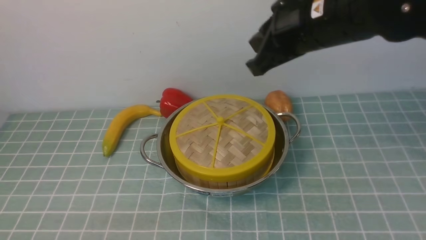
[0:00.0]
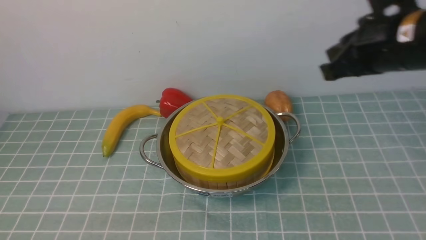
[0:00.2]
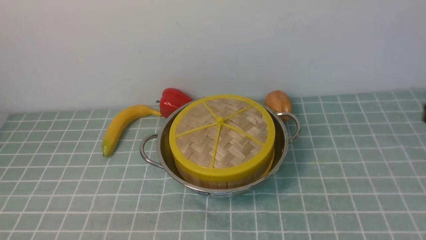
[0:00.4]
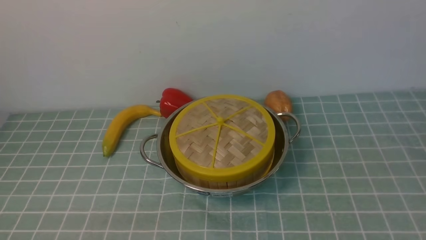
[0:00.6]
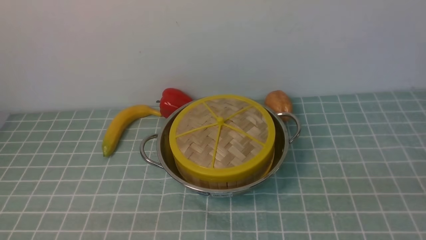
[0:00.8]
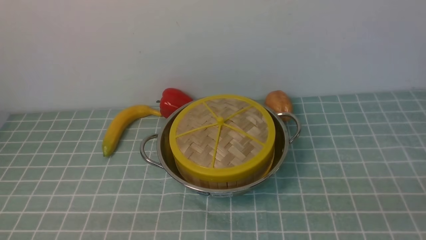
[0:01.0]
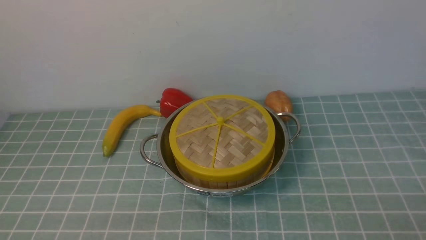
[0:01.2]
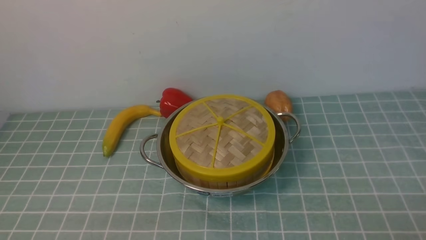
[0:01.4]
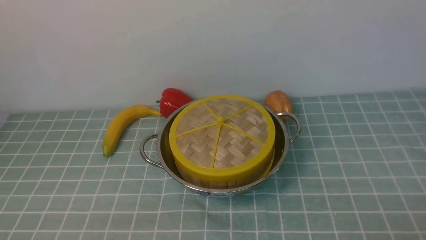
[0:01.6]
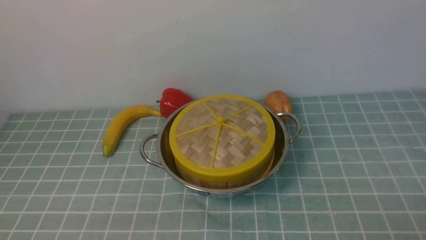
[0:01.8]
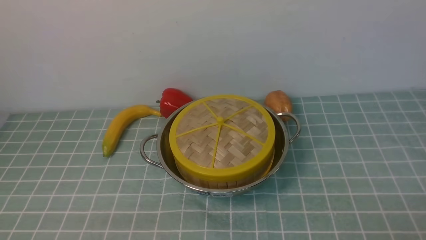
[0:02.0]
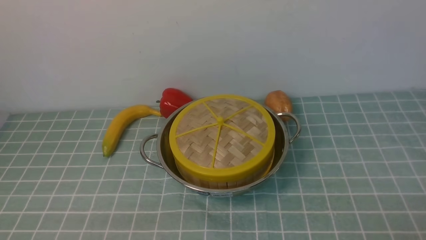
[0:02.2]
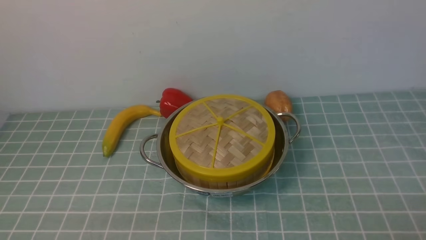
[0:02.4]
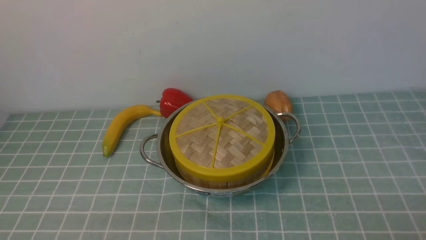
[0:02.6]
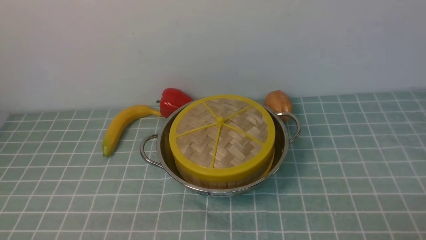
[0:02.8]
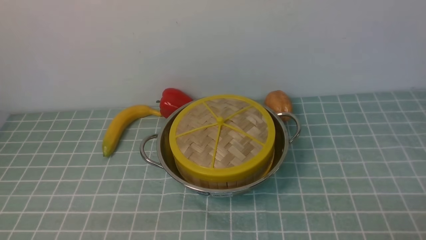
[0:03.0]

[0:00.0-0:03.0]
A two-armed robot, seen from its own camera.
Task of the whole recording: place the steamer in the pot on the blue tablecloth, and put the lid on the steamer.
0:00.0 to 0:01.6: The right gripper heads backward, downward and to the right, covering roughly 35 cm.
0:01.6 to 0:03.0: Both grippers stay about where they are.

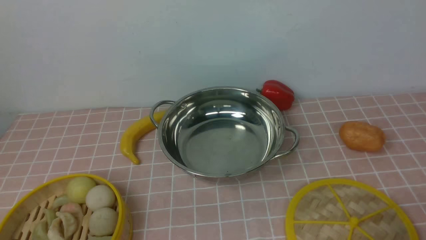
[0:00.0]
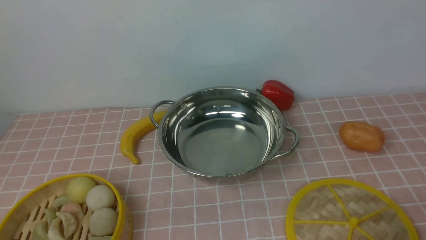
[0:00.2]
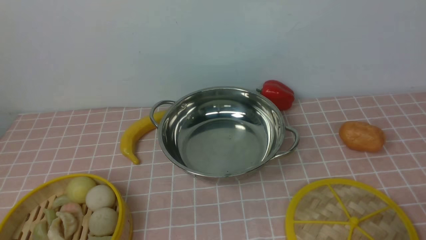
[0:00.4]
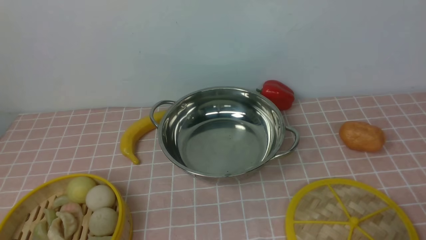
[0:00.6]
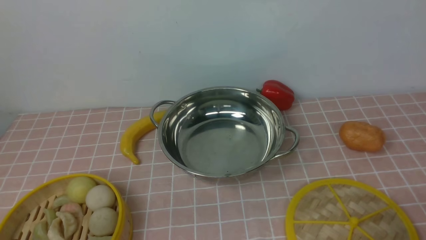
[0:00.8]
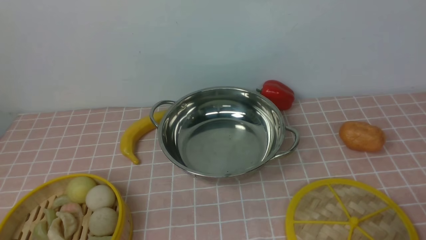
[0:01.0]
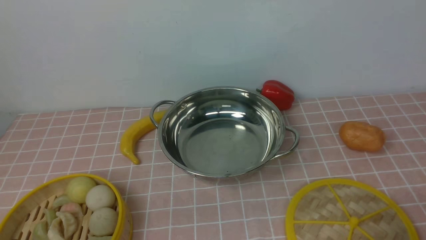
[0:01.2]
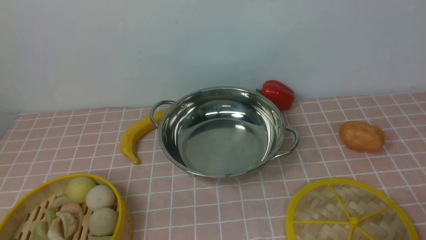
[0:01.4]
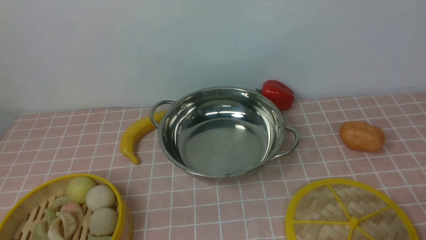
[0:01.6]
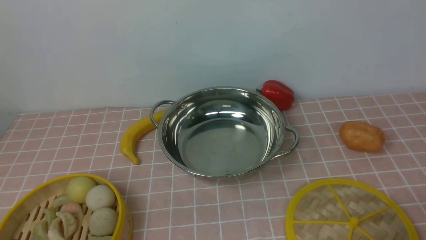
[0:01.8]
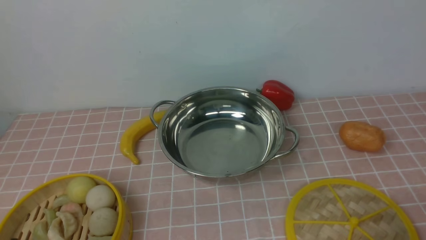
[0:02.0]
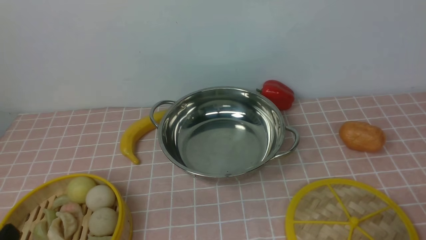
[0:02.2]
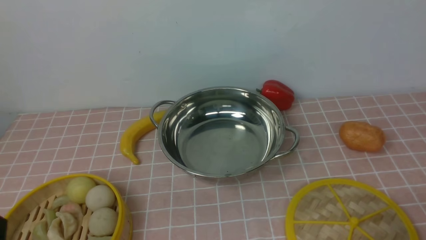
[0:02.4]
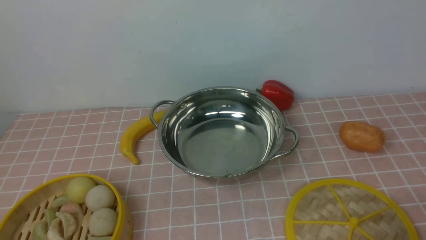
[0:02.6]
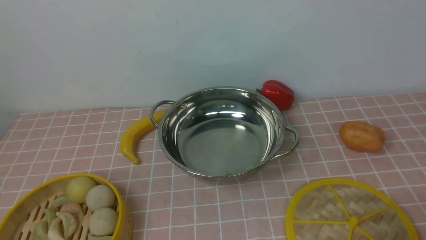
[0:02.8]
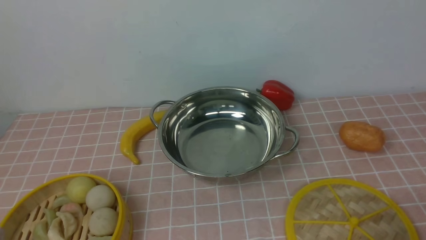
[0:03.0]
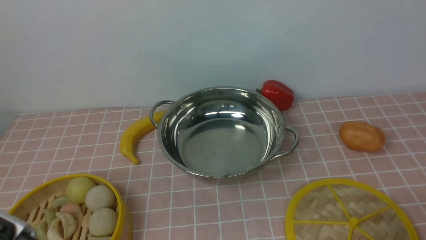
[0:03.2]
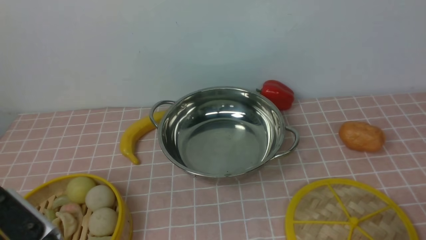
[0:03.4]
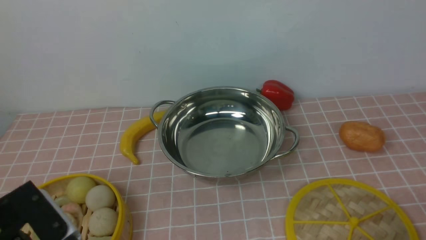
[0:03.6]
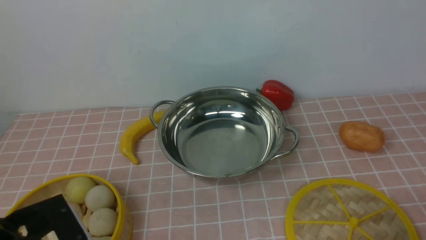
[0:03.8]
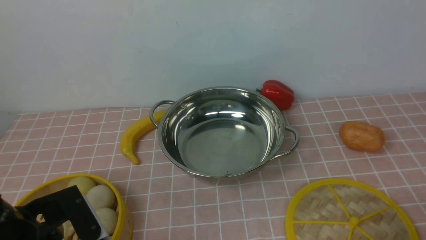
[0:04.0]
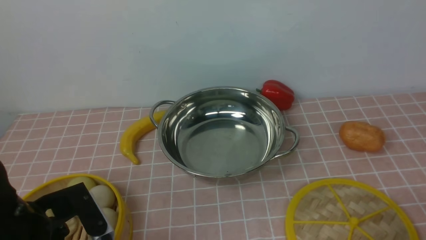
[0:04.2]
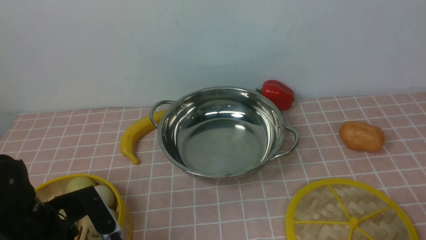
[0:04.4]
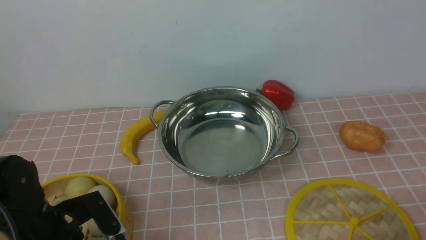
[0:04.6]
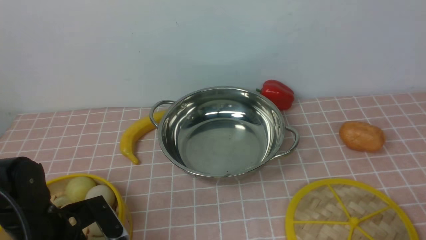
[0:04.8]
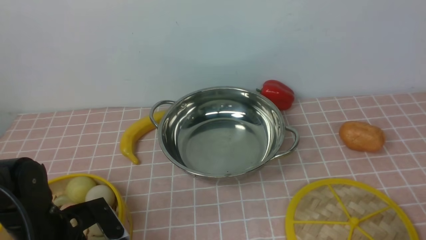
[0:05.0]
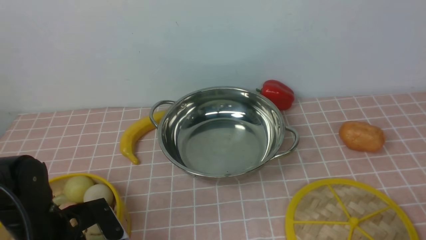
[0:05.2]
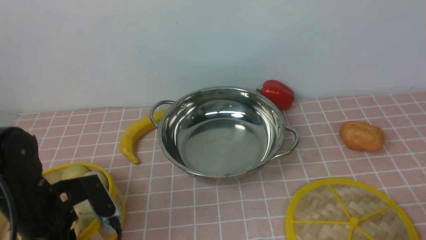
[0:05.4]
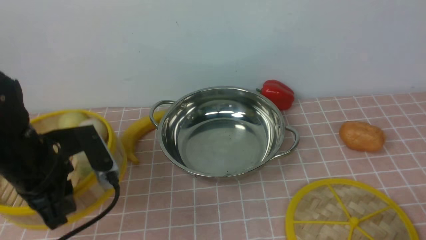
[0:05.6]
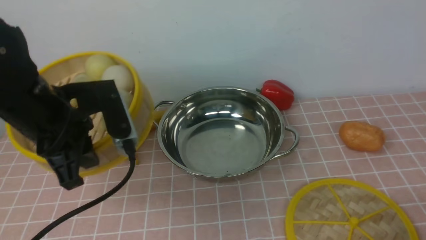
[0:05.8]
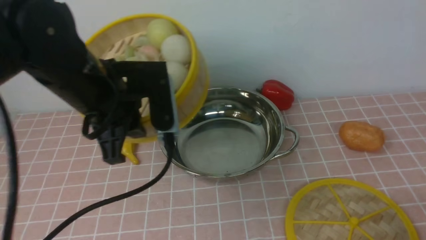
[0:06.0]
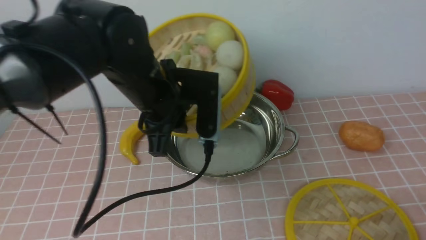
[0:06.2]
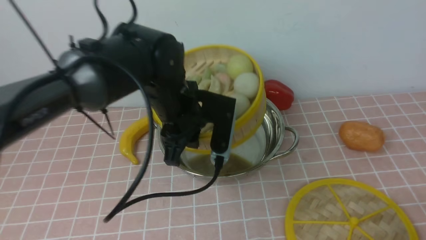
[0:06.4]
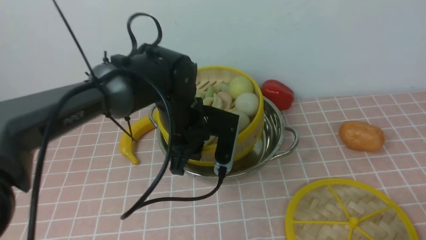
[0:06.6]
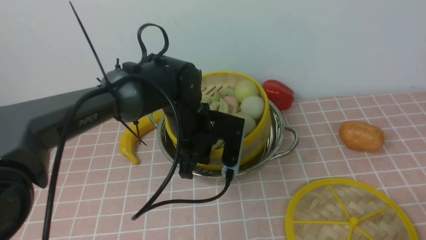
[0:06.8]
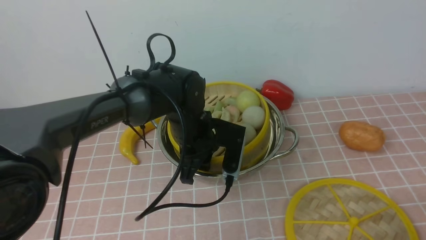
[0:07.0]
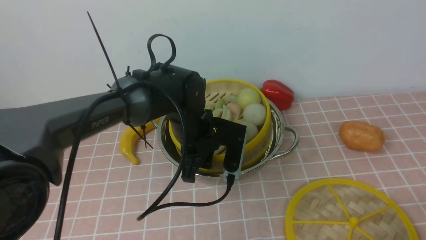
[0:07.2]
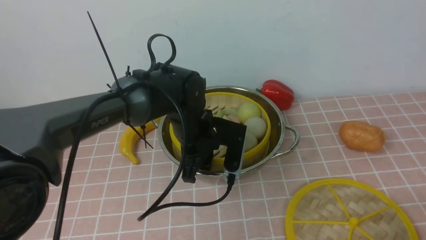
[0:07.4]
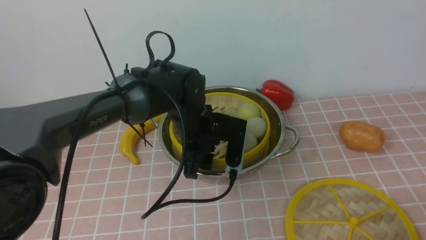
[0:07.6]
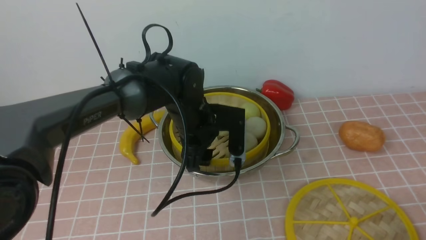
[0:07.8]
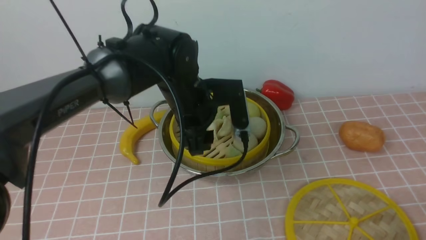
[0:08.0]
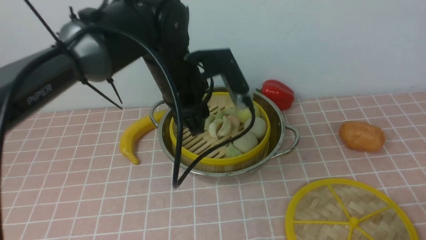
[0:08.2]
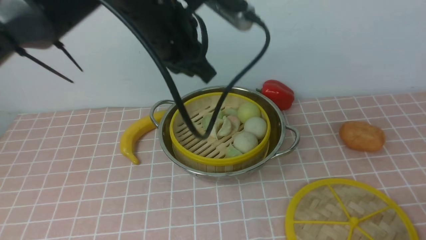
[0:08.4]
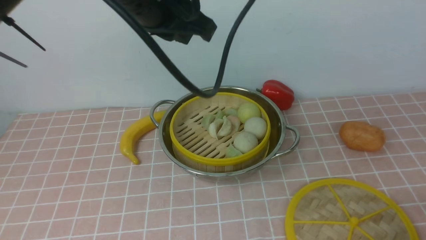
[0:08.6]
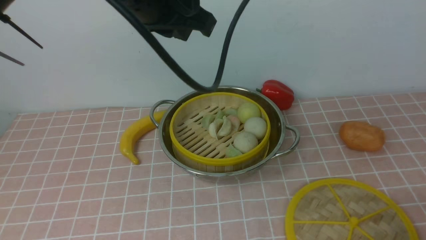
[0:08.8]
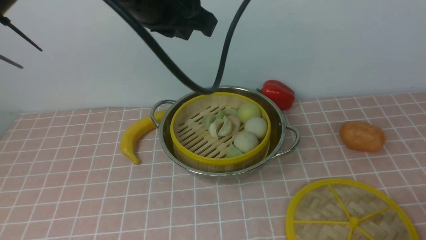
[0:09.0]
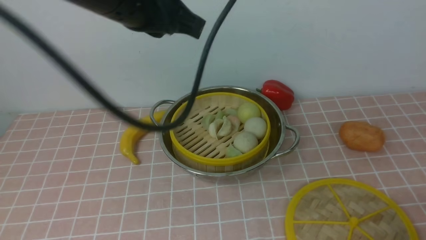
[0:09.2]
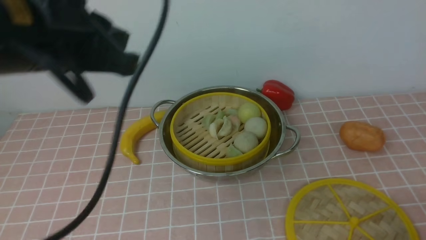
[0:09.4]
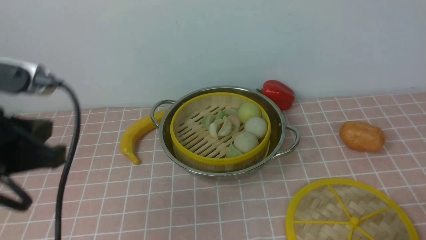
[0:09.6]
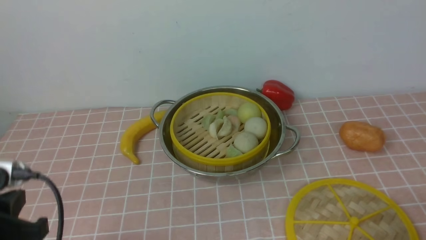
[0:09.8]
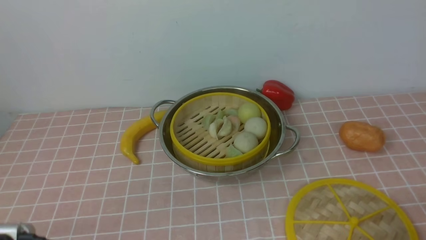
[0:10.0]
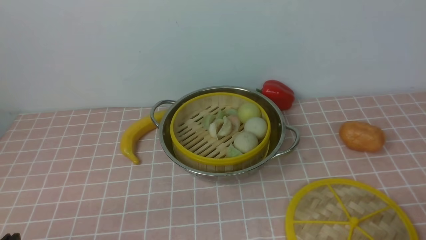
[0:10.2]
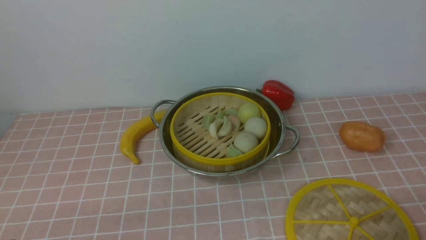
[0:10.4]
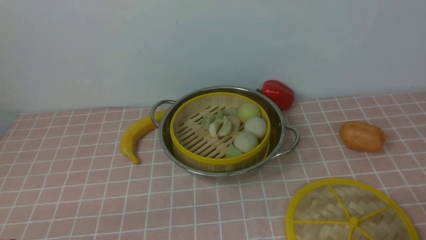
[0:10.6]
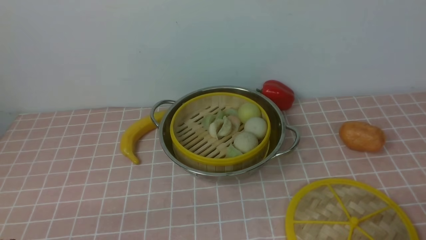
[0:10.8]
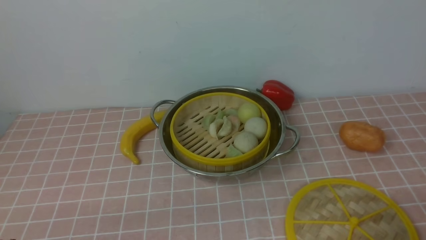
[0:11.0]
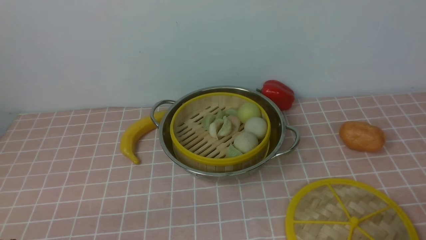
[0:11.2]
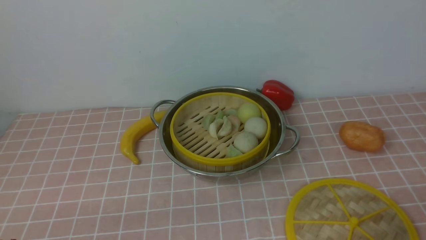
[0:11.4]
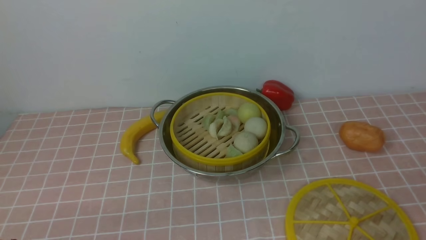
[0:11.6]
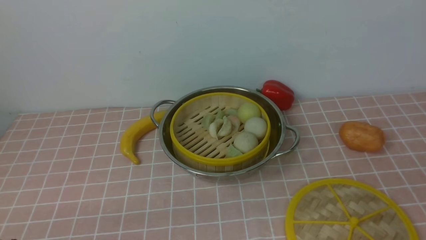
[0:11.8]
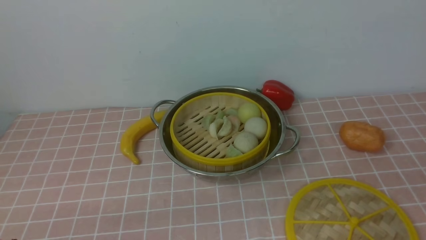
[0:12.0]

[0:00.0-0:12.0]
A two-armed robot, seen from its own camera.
Task of the whole recording: place the steamer in the pot on the pink tablecloth, and put the lid on the steamer.
Step, 0:00.0 to 0:05.2: use the left arm to lift the steamer closest to it.
Step, 0:05.4 to 0:07.8: use the left arm to put the steamer into the iron steamer pot in the middle.
0:00.0 to 0:01.6: Neither gripper changes place.
0:03.0 to 0:04.4: The left gripper moves forward and downward, about 20 cm, and opens its fingers.
0:04.4 to 0:06.0: The left gripper is displaced upward, forward and to the right by roughly 20 cm, and closes.
0:06.0 to 0:07.6: The left gripper heads downward, to the right and forward, covering some 15 cm, and opens.
0:07.6 to 0:09.0: The left gripper goes approximately 25 cm upward, and closes.
0:09.0 to 0:10.4: The left gripper moves backward, downward and to the left, some 40 cm.

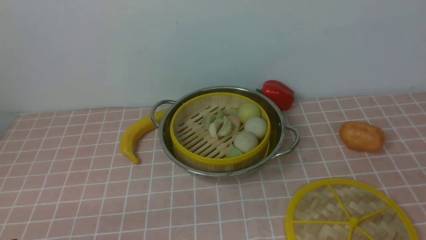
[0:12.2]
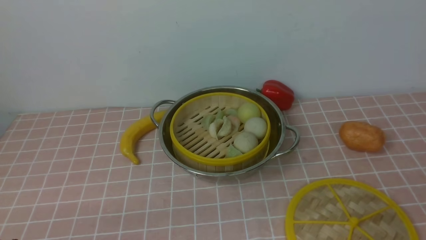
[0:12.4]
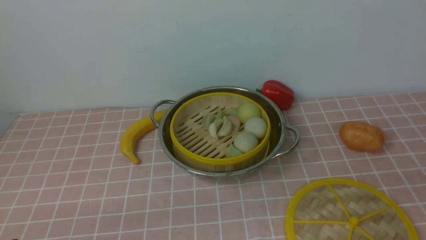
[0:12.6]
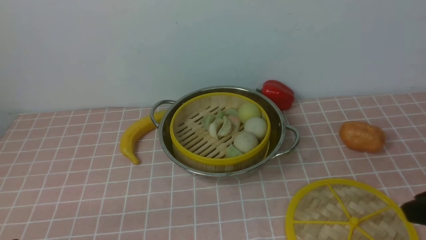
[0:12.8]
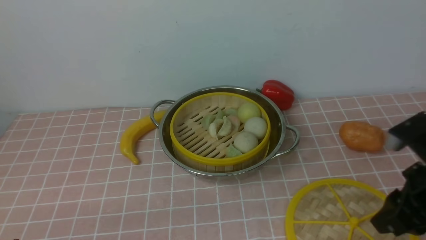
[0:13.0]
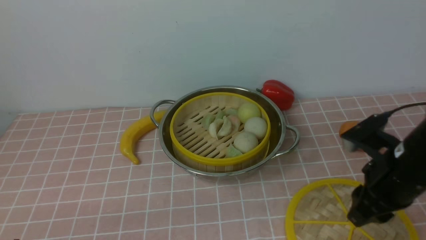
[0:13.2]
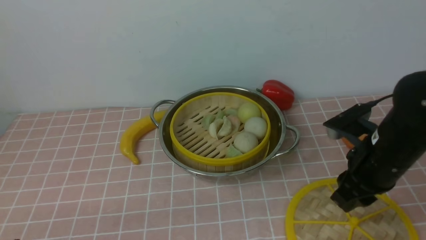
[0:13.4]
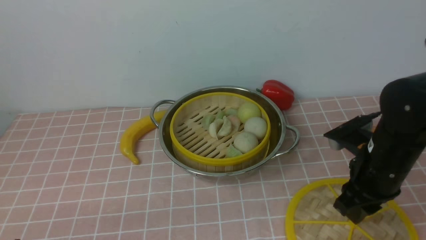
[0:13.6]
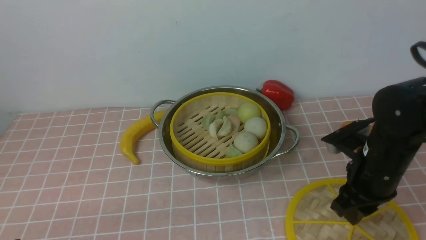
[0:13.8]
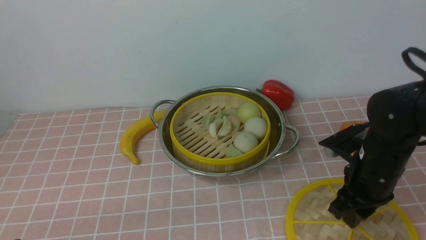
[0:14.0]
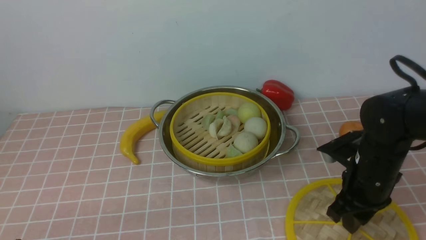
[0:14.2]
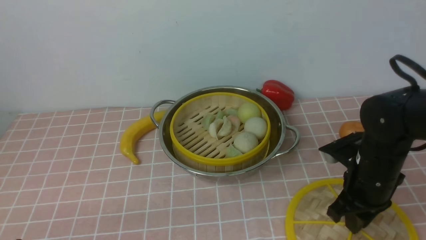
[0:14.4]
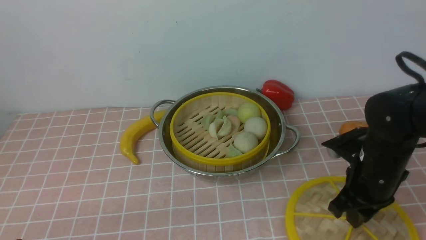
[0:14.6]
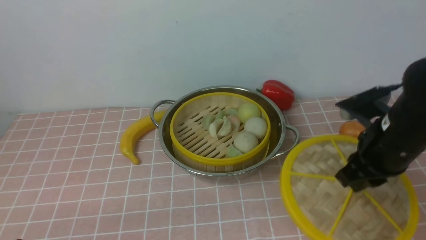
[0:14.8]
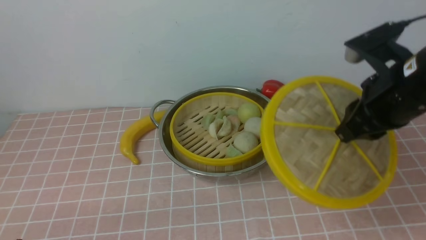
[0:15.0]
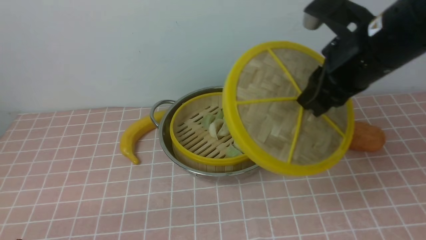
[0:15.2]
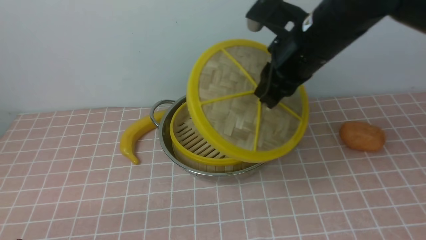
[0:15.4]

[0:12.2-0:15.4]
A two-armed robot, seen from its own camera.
Task of the whole recording: place the steamer in the pot on the pink tablecloth, and put the lid on the steamer.
Step, 0:12.2 to 0:14.6: use the right arm to lift the lid of the steamer.
0:12.2 to 0:13.8: The right gripper goes roughly 25 cm forward and downward.
0:13.8 to 0:15.4: The right gripper moves upward, to the left and forward, roughly 20 cm.
